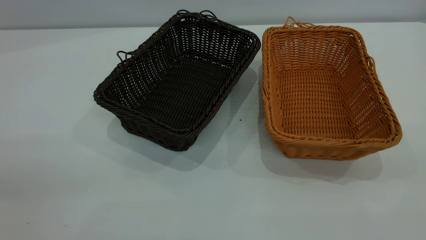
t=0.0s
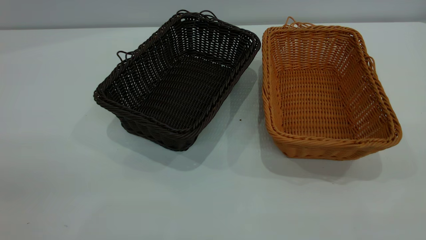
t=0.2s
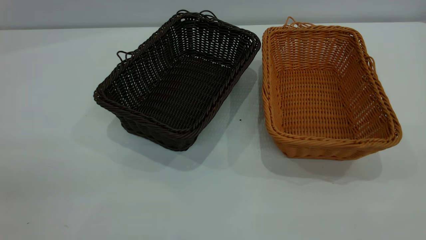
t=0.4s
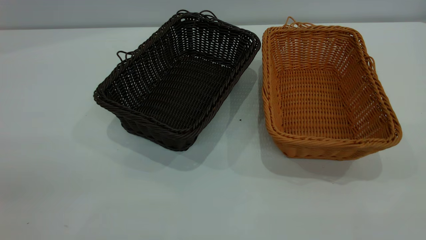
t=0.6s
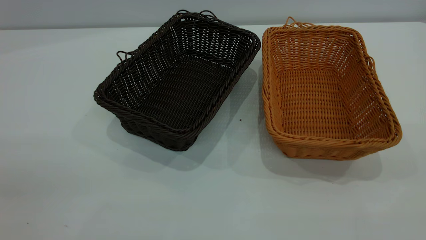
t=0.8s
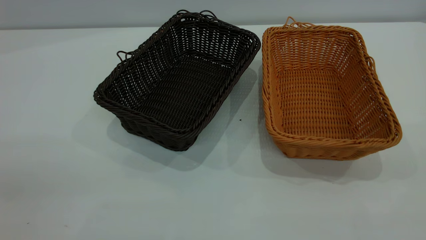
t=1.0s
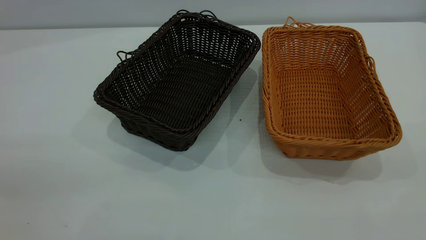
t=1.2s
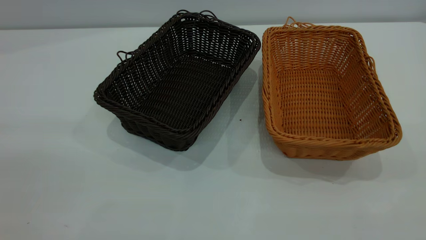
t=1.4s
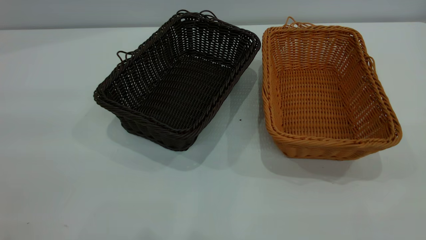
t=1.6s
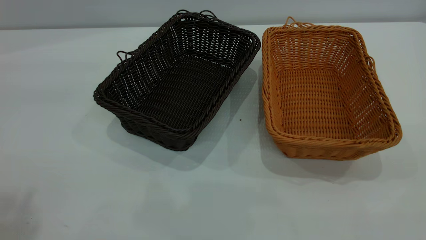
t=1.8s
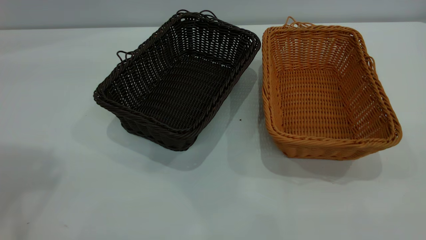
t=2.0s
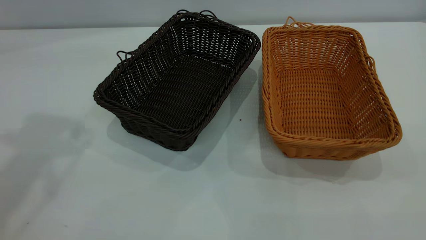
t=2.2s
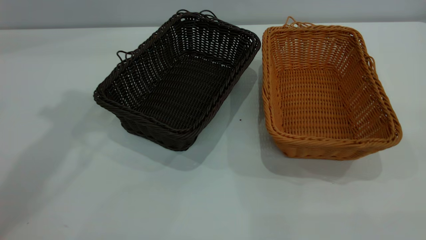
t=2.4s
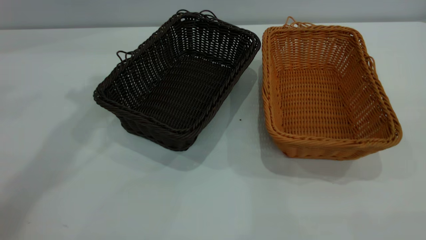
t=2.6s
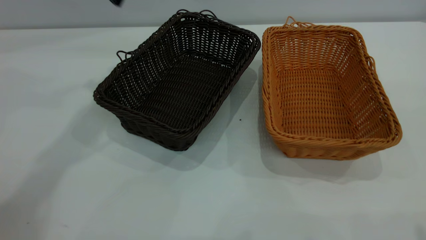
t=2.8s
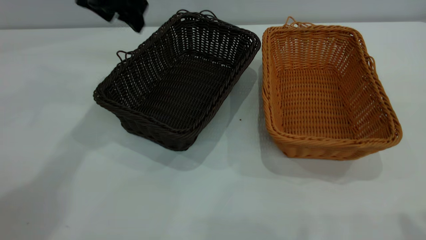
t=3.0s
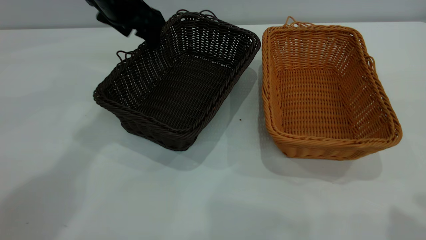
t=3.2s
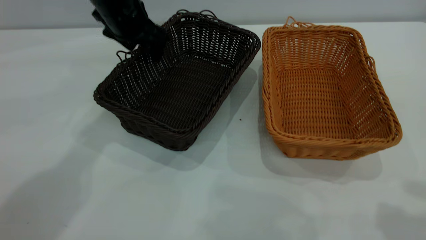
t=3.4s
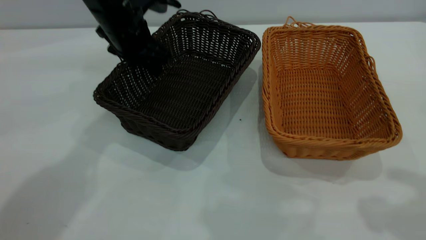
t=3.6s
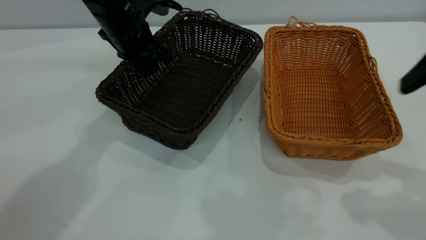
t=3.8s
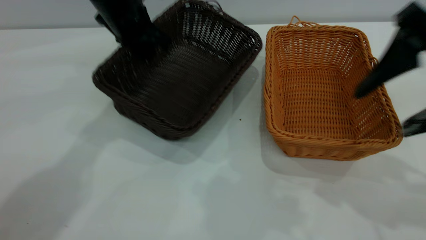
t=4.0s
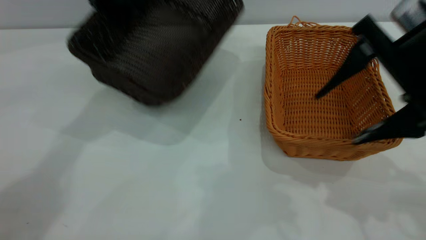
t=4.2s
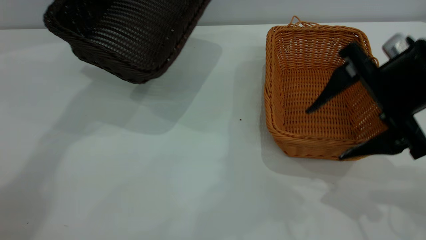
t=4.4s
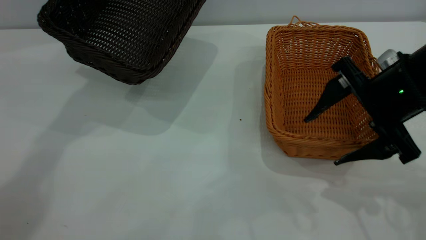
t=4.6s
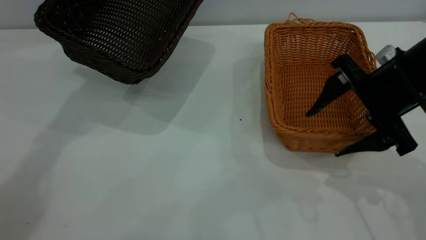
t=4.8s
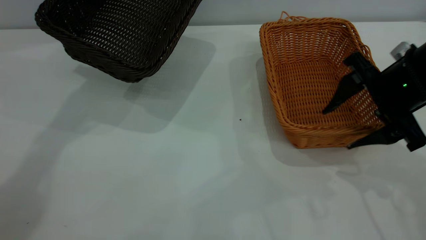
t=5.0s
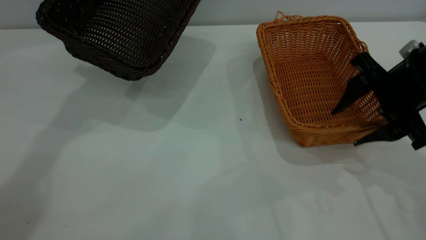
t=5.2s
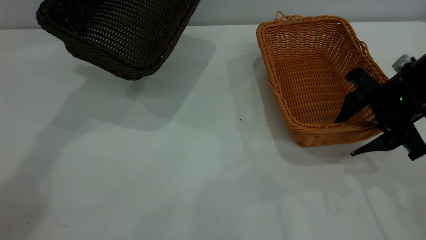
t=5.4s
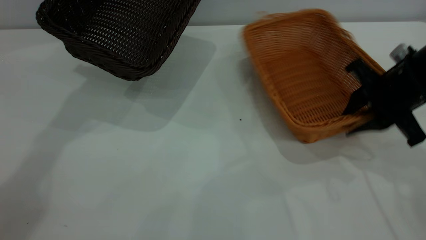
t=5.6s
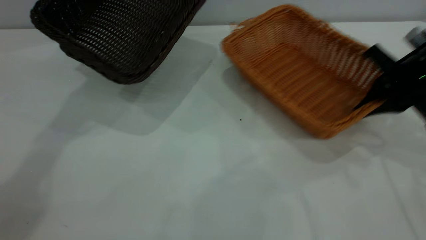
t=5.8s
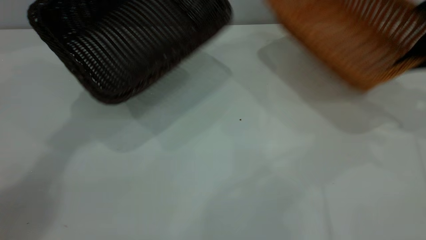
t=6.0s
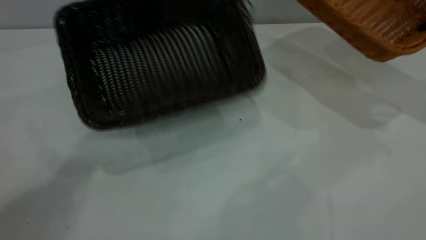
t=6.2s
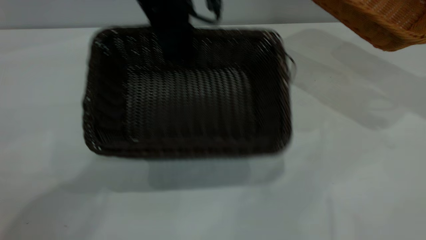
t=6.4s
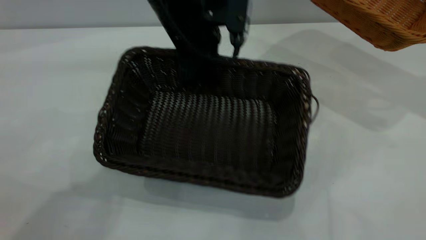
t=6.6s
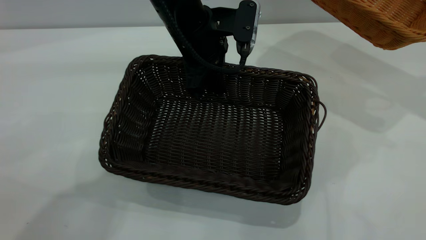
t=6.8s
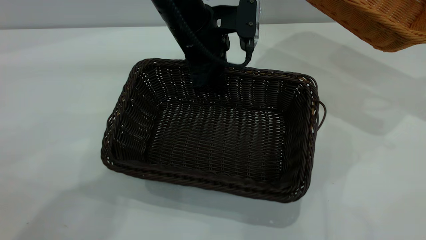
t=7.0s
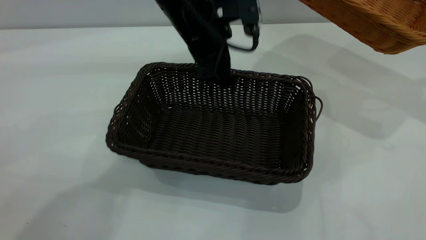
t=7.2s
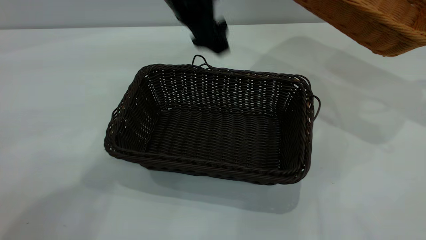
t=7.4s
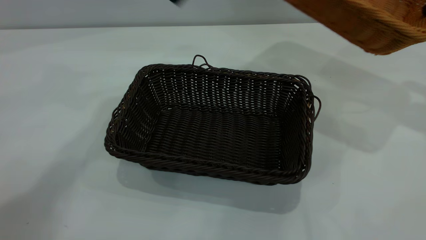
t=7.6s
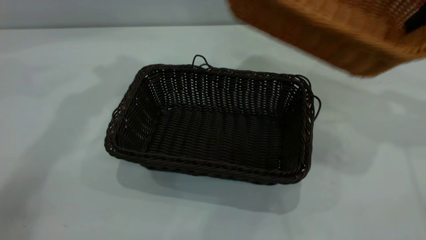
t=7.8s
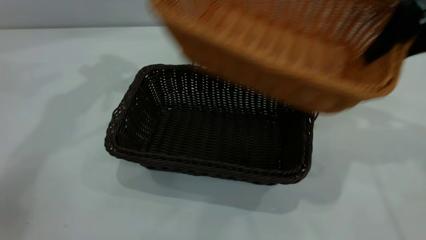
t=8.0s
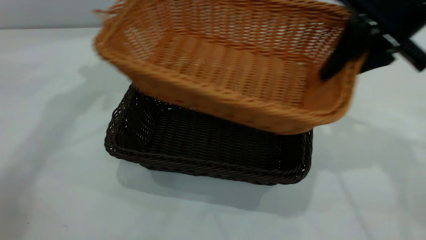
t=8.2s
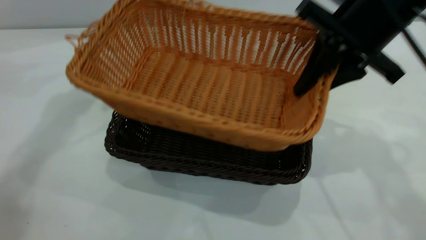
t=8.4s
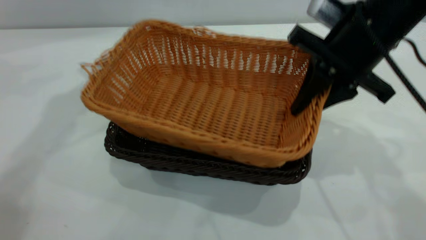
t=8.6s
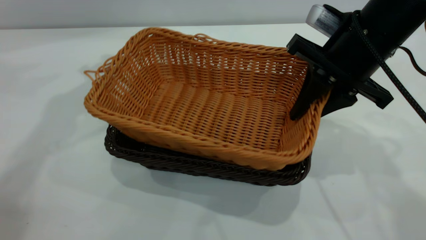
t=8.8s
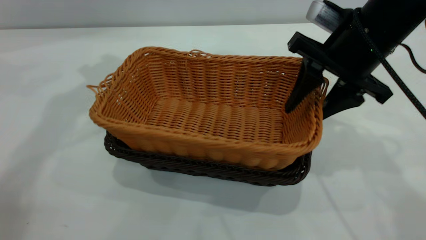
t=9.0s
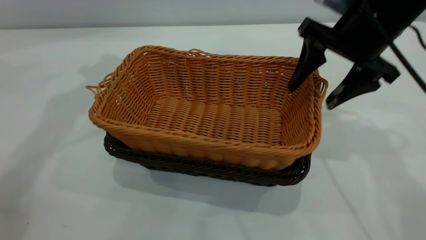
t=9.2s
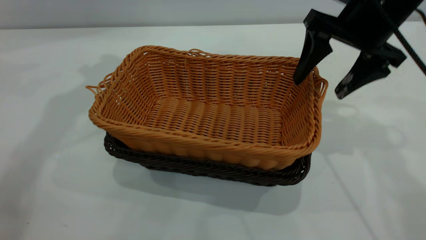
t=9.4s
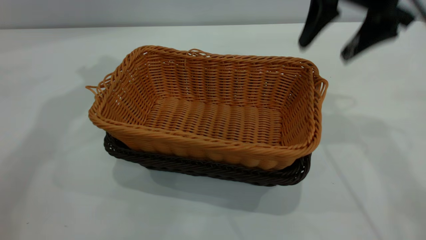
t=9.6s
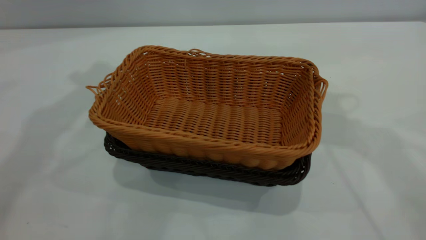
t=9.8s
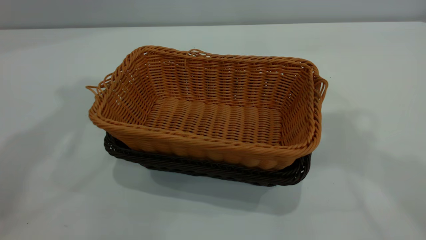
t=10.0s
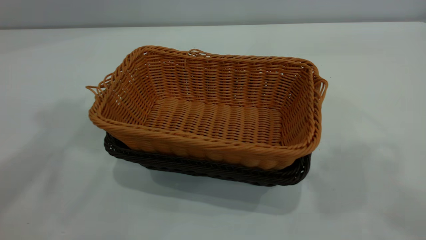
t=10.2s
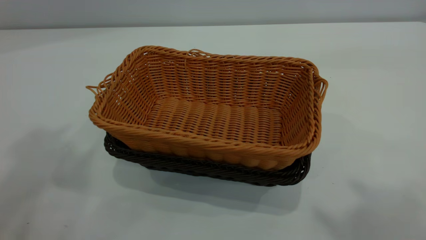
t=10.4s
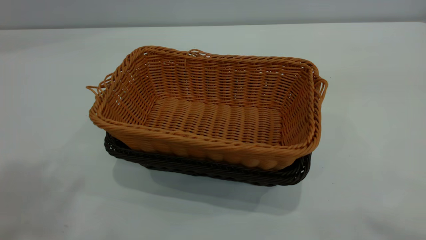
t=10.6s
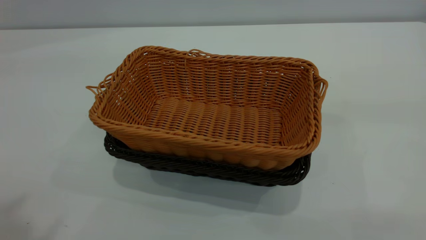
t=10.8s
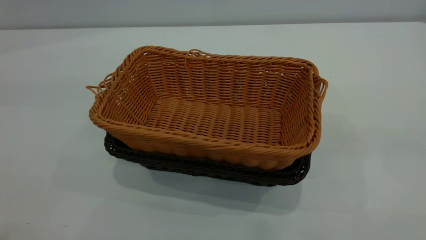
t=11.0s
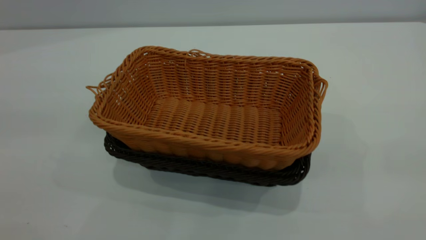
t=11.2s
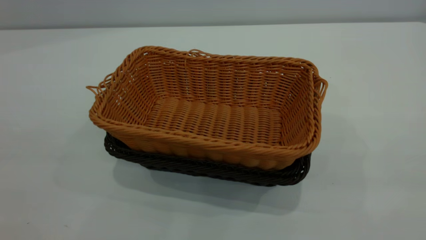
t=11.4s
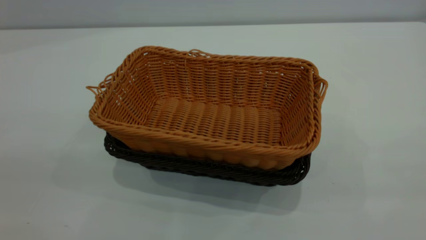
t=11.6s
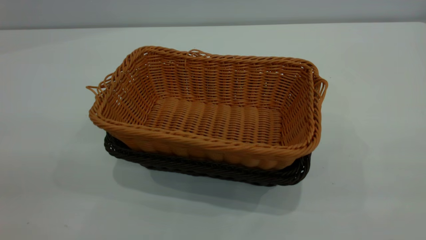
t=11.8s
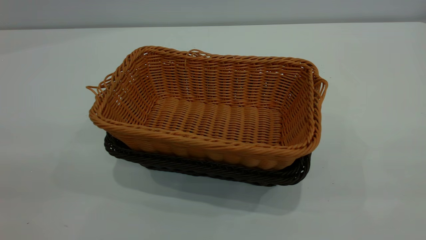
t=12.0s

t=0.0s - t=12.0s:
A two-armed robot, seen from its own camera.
Task of the whole recording: the left gripper grasp the black basket and place it in the center of the table, the right gripper grasp the brown basket and place it inside the black one.
Step, t=0.0s - t=6.0s: Pick up the light basket with the right gripper.
Step, t=6.2s - t=7.2s: Move the dark basket to the center of view.
Step, t=7.4s - t=9.6s: Place the light basket on the dark basket.
t=1.6s - t=3.0s: The left gripper moves forward and downward, roughly 40 cm.
t=3.0s - t=4.4s: The right gripper goes some 25 cm downward and forward; the left gripper ends up approximately 5 cm from where it was, and closes up.
t=4.4s - t=6.0s: The right gripper travels to the right and forward by about 20 cm, and closes.
t=6.0s - t=7.6s: The right gripper heads upward, covering roughly 5 cm, while the left gripper goes to the right and returns, approximately 15 cm each way, and opens up.
t=7.6s - t=9.0s: The right gripper travels to the left by roughly 20 cm, and opens up. The left gripper shifts some 5 cm to the left.
t=9.0s - t=10.4s: Both grippers travel together upward and backward, approximately 35 cm. The right gripper opens up.
